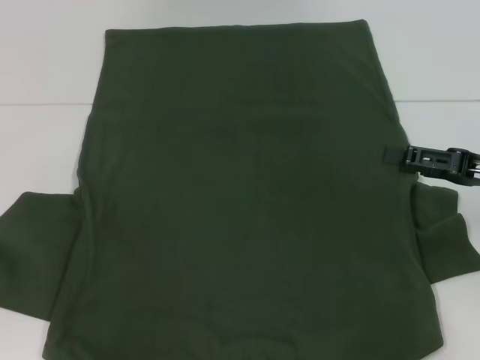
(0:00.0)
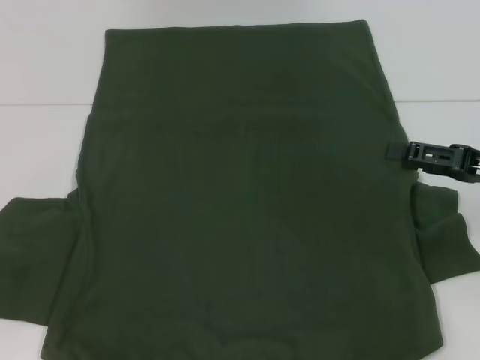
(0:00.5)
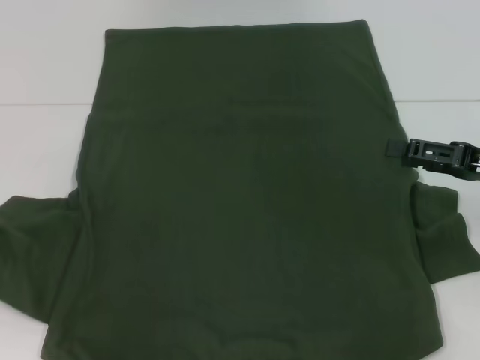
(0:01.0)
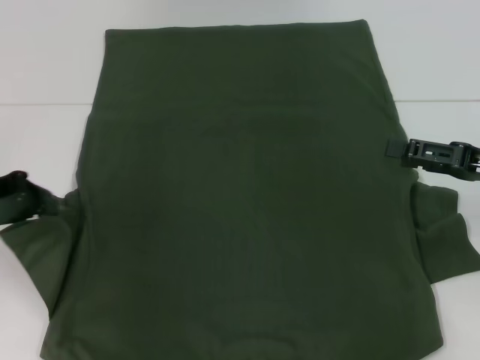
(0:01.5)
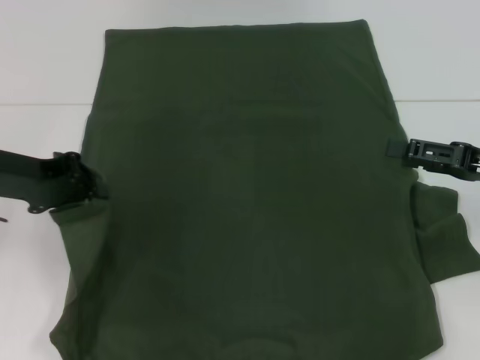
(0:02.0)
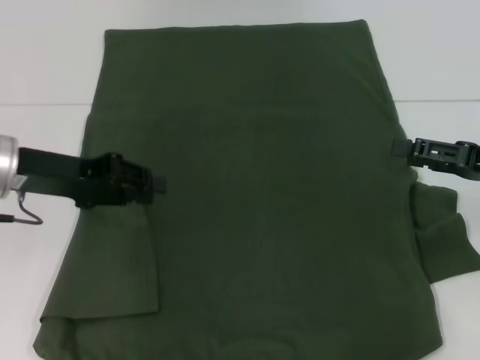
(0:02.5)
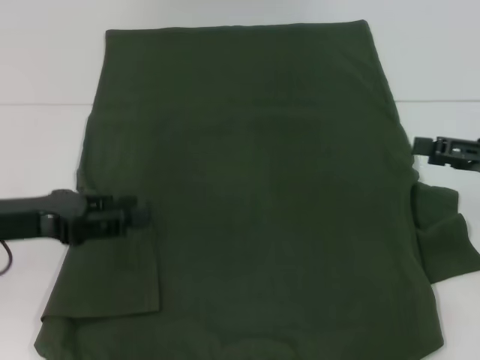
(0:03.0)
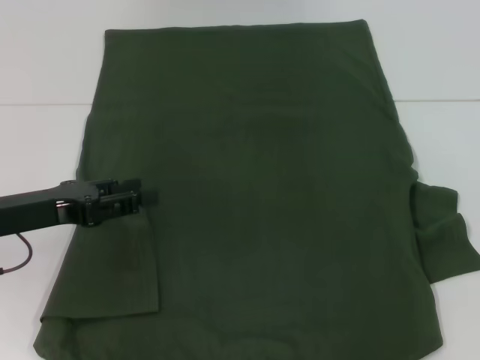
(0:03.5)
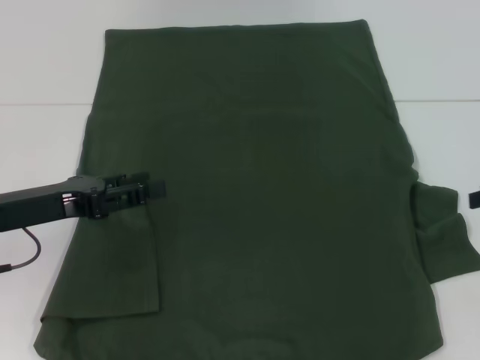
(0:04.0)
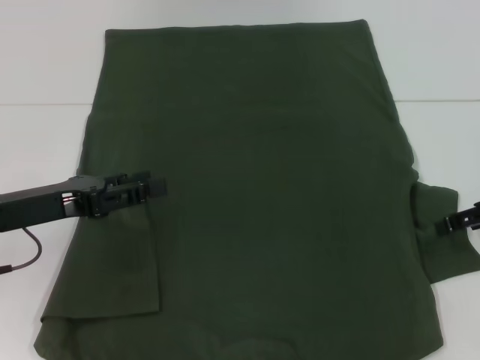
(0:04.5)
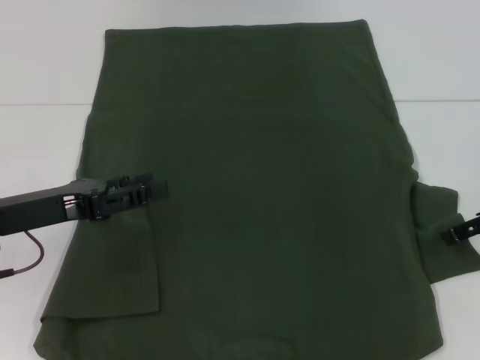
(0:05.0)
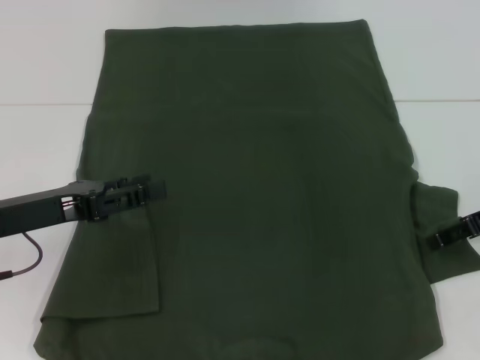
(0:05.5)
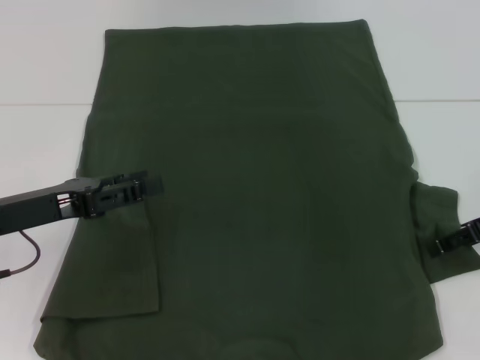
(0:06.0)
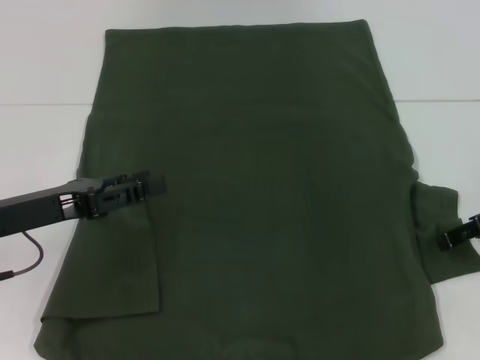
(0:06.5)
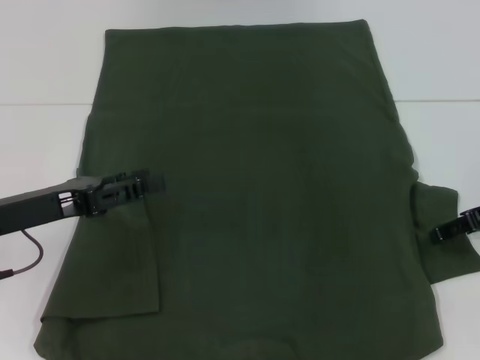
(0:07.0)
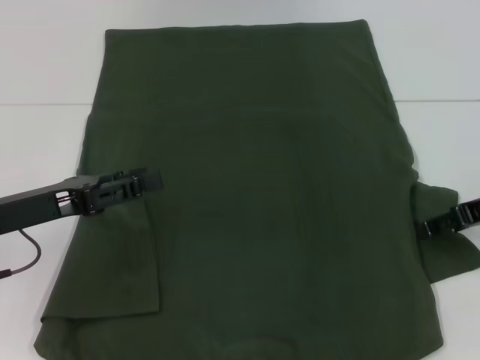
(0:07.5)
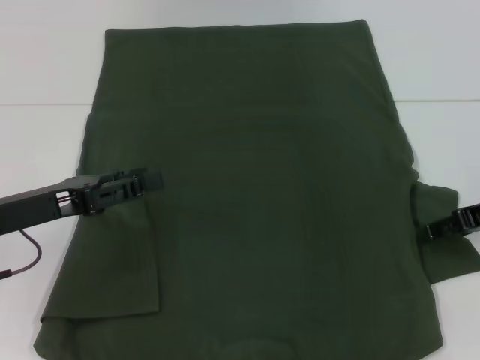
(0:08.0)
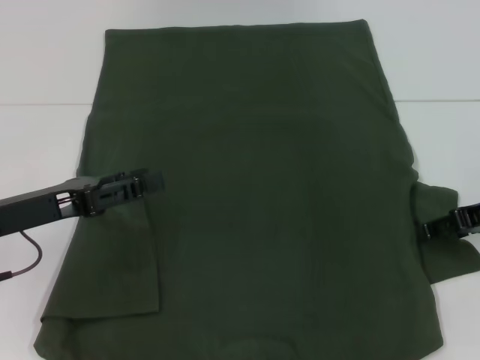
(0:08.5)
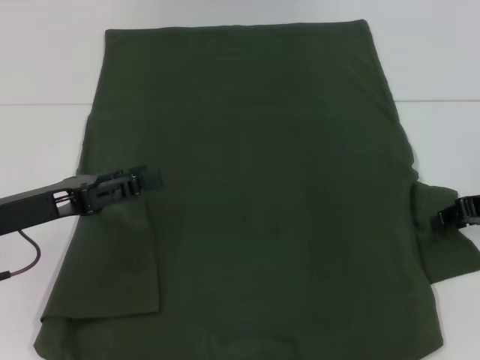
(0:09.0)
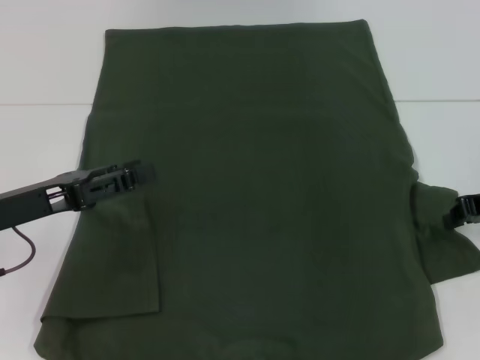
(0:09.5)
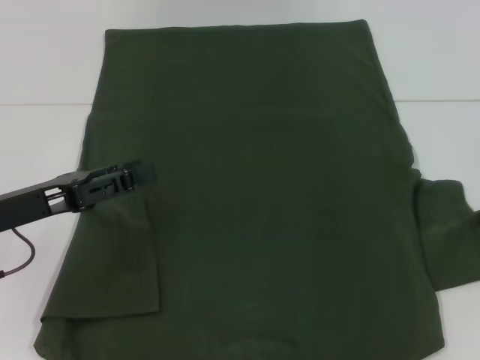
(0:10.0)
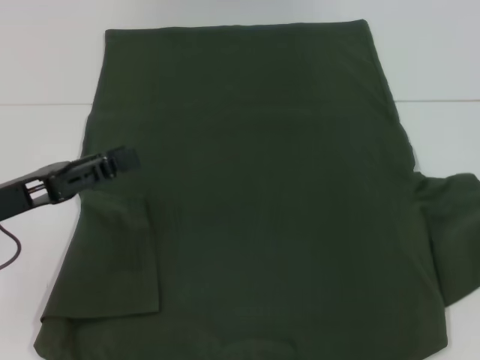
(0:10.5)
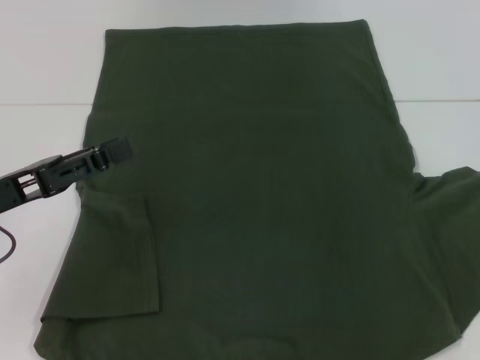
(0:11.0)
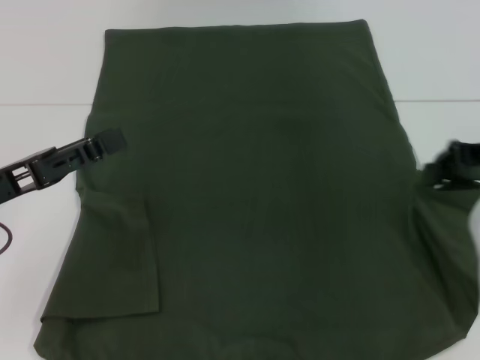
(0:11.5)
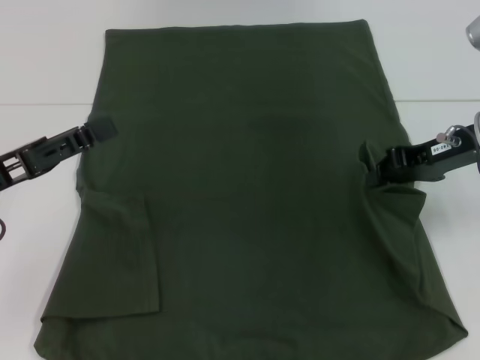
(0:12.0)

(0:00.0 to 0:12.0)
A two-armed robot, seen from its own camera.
Step, 0:00.0 - 0:02.0: Fold the bottom left sleeve with your left hand.
0:00.0 - 0:02.0: The left gripper goes roughly 15 cm to the right, upward and forward.
0:02.0 - 0:04.0: The right gripper heads to the right, covering about 5 cm, while the left gripper ends up roughly 5 cm from where it was, and opens its fingers.
0:04.0 - 0:06.0: The right gripper goes approximately 5 cm to the left.
0:06.0 - 0:08.0: The grippers make only small movements.
0:08.0 - 0:10.0: The right gripper closes its fingers.
0:10.0 - 0:12.0: The right gripper goes about 10 cm to the left.

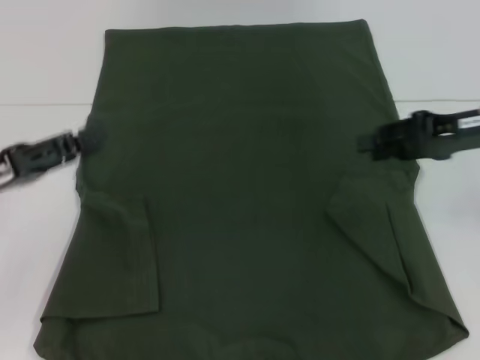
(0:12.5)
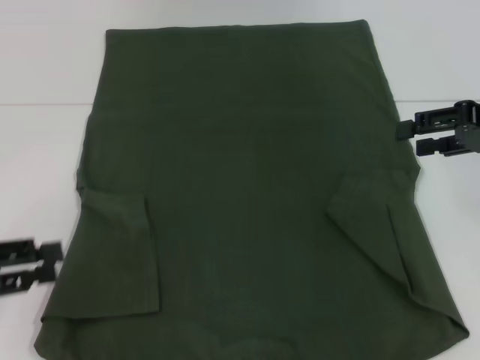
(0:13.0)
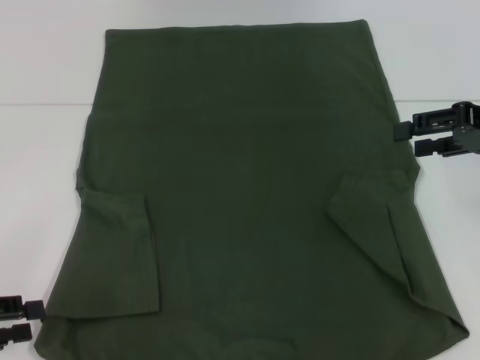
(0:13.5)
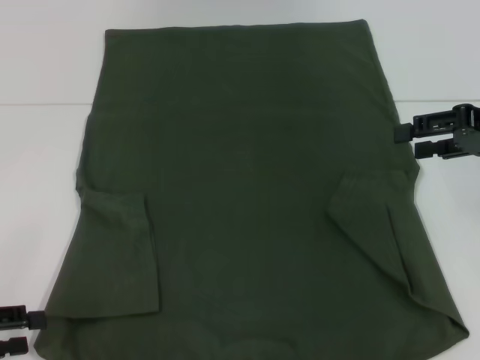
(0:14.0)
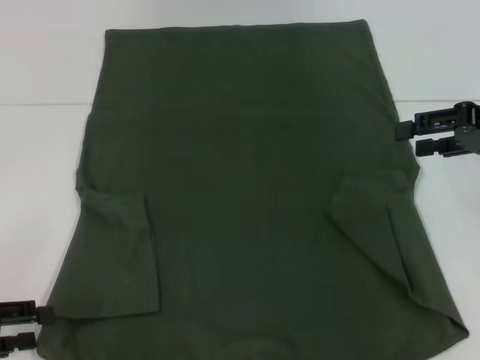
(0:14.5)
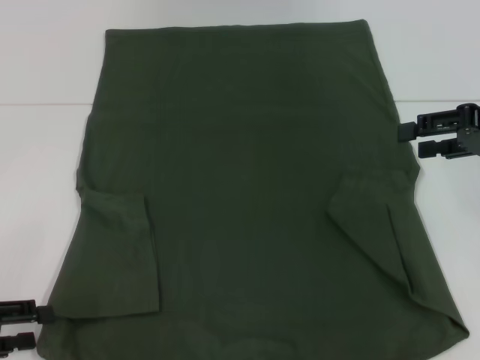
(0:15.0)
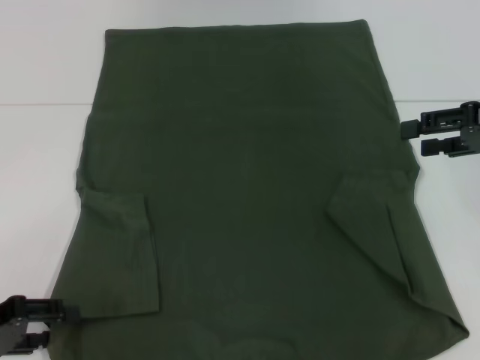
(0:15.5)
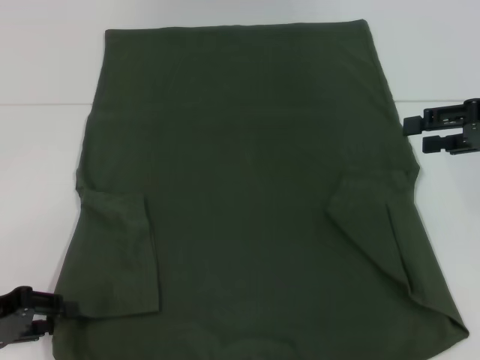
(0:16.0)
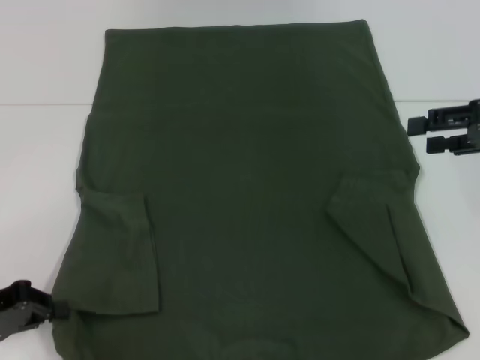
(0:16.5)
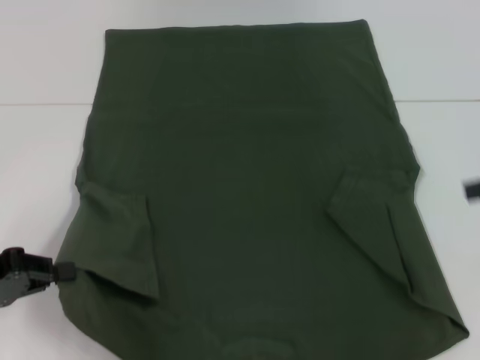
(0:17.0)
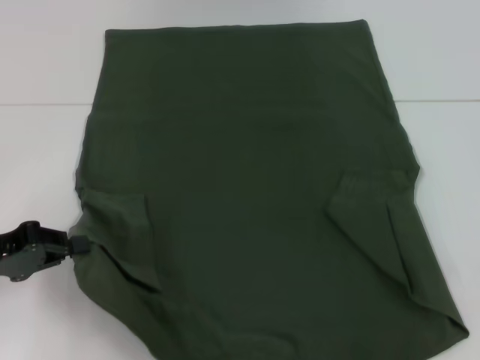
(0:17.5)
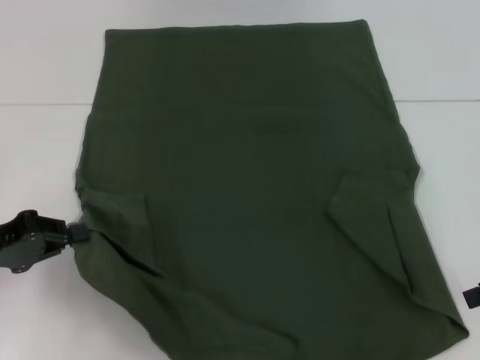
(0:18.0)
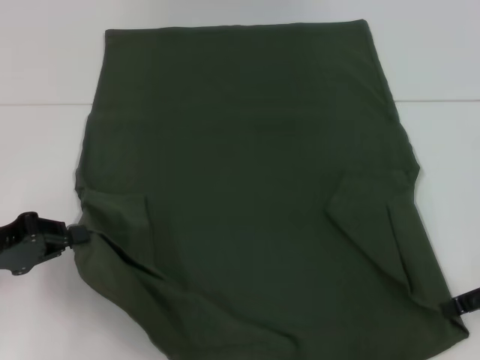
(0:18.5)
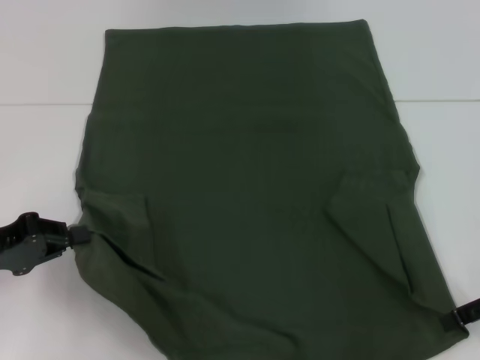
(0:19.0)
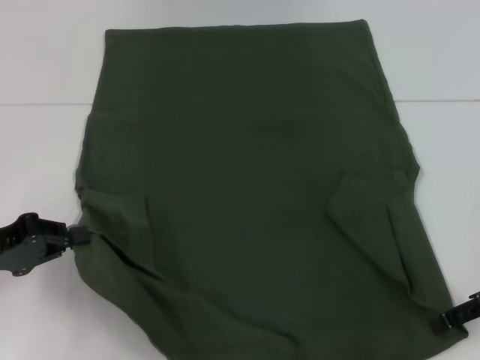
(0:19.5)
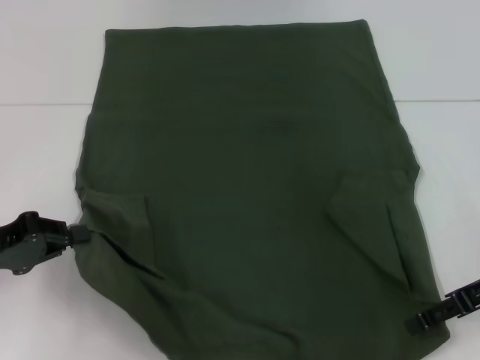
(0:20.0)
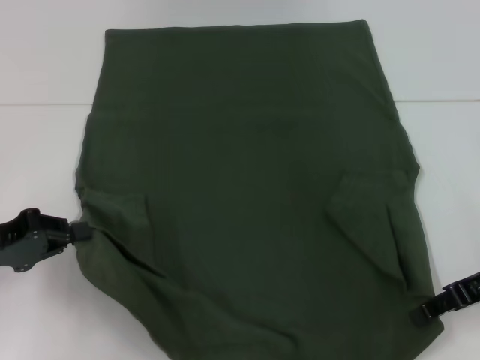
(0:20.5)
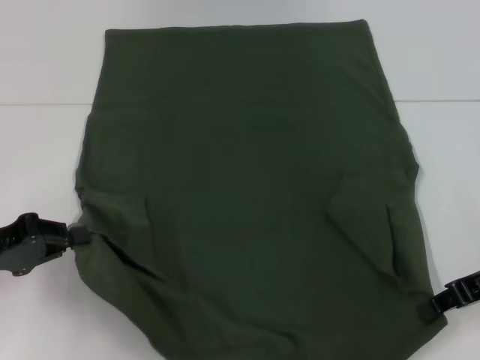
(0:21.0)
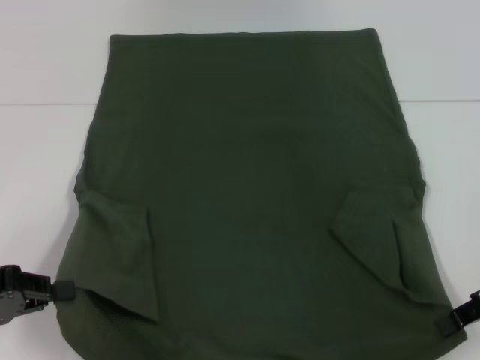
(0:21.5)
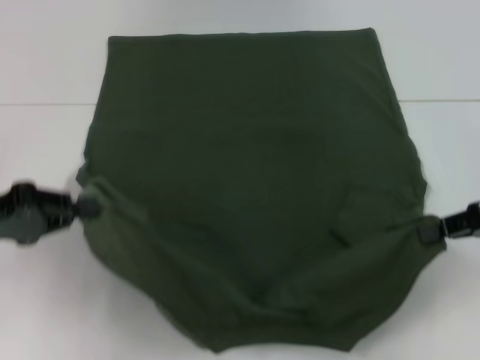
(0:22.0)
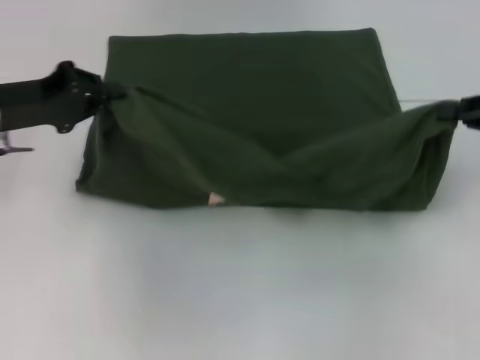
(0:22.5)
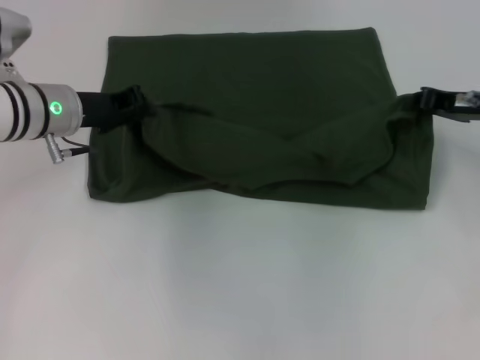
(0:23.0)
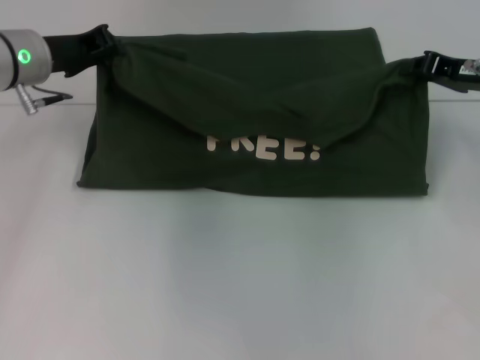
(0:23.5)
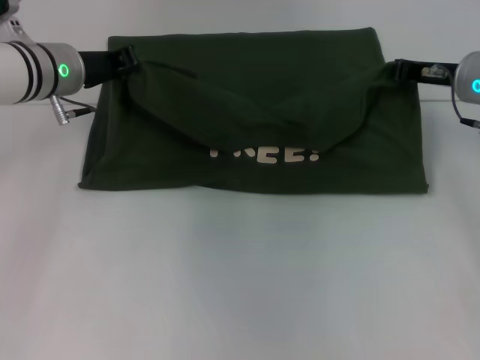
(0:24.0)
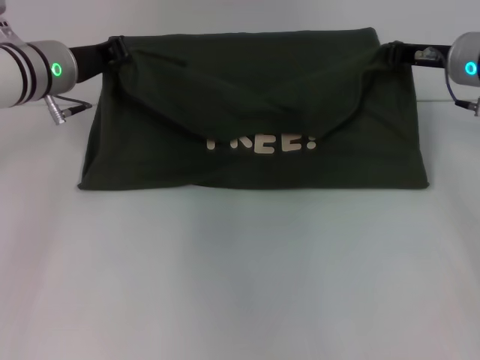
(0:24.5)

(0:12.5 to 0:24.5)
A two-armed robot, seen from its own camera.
Step, 0:12.5 - 0:16.0: Grab the bottom left corner with your left hand.
Step, 0:16.5 - 0:20.5: Grab the bottom right corner with your right hand.
0:12.5 - 0:14.5: The left gripper goes about 10 cm downward, backward and to the left, while the right gripper opens its fingers.
0:14.5 - 0:16.5: The left gripper closes its fingers.
0:16.5 - 0:18.5: The right gripper shifts approximately 10 cm downward and backward.
0:18.5 - 0:20.5: There are only small adjustments of the grippers.
0:20.5 - 0:22.5: The right gripper heads upward, to the right and forward, covering some 10 cm, and closes up; the left gripper is displaced forward and upward by roughly 10 cm.
0:22.5 - 0:24.5: The left gripper goes some 10 cm to the right and forward. Meanwhile the right gripper goes some 15 cm to the left and forward.

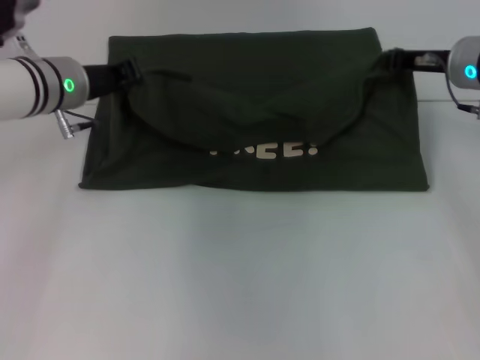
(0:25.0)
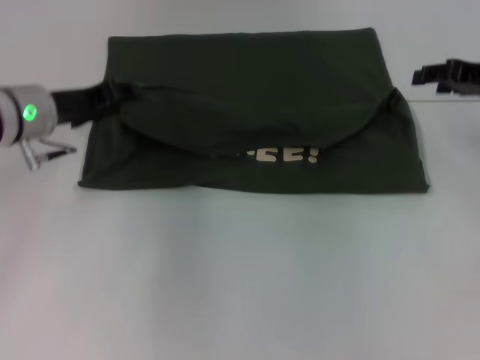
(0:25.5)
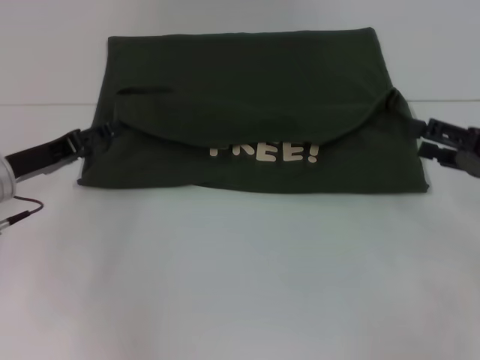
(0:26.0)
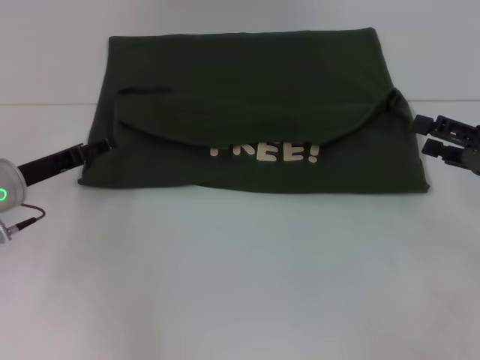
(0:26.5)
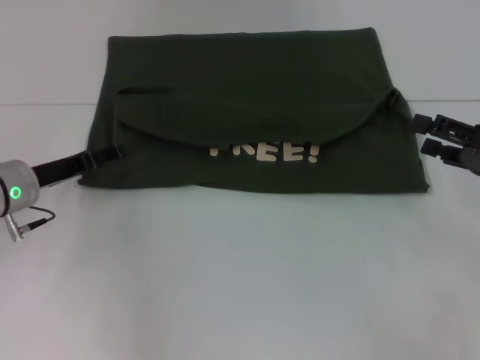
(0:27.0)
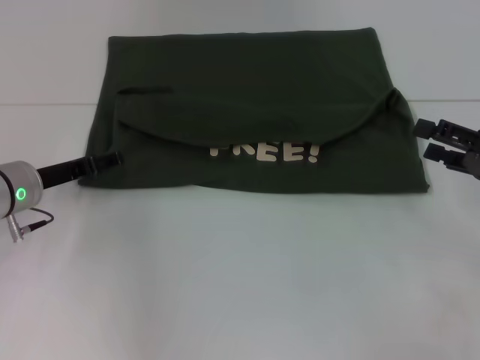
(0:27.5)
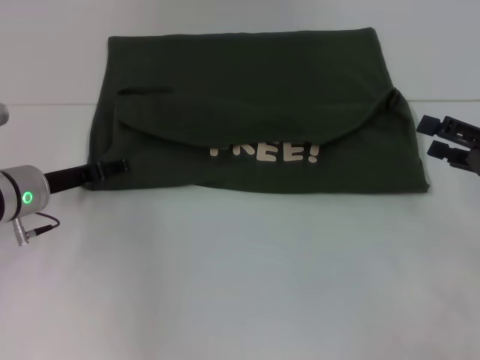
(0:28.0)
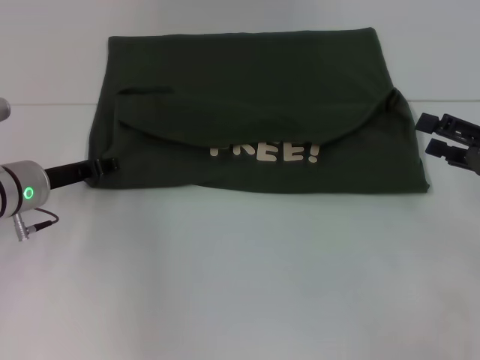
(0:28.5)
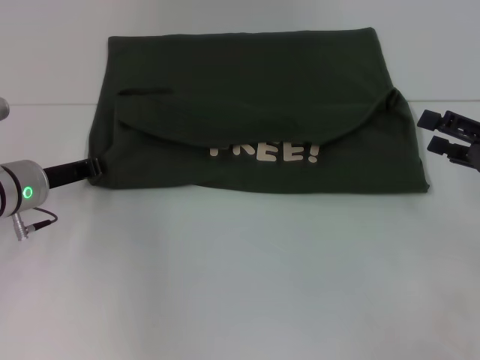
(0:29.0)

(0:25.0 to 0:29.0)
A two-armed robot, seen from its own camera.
0:25.0 - 0:27.0: The left gripper moves downward, backward and to the left, about 15 cm, and opens its fingers. The right gripper heads backward and to the right, covering roughly 15 cm, and opens.
0:27.0 - 0:29.0: The left gripper closes.
